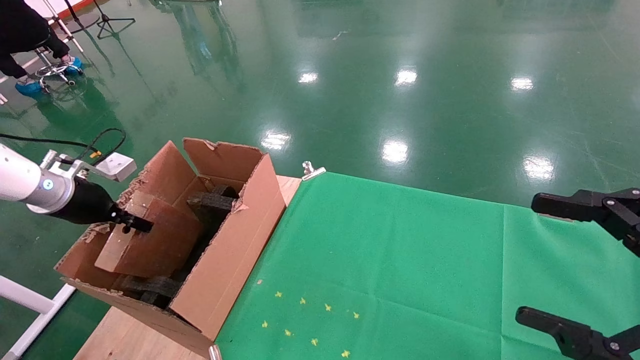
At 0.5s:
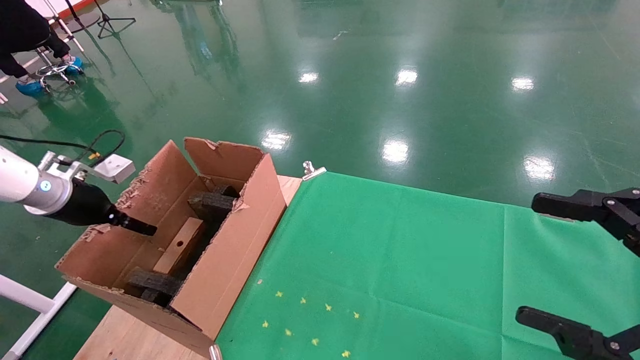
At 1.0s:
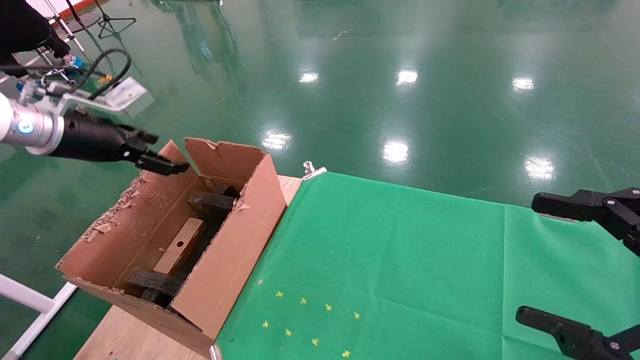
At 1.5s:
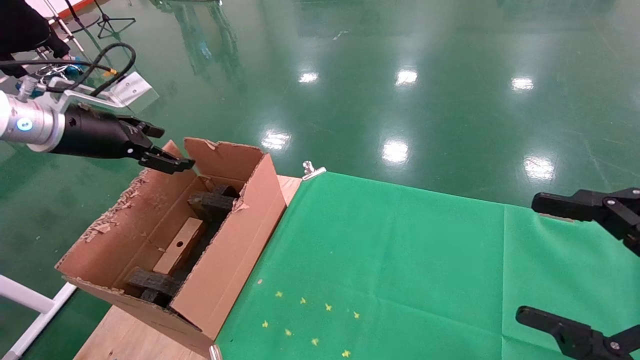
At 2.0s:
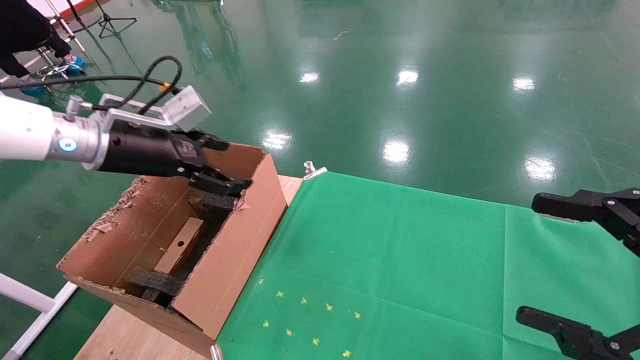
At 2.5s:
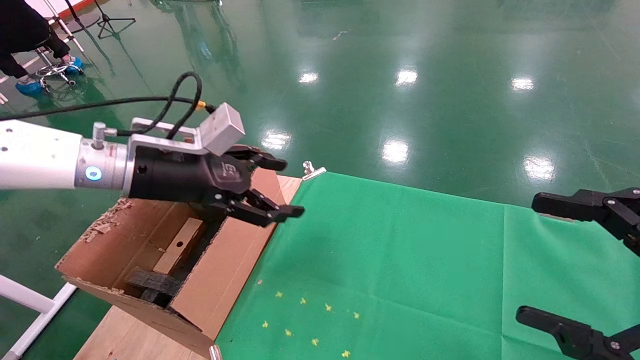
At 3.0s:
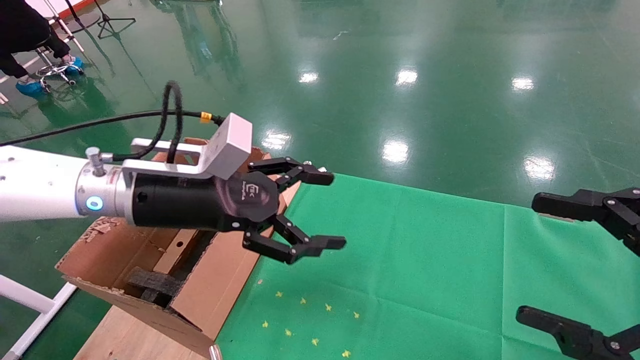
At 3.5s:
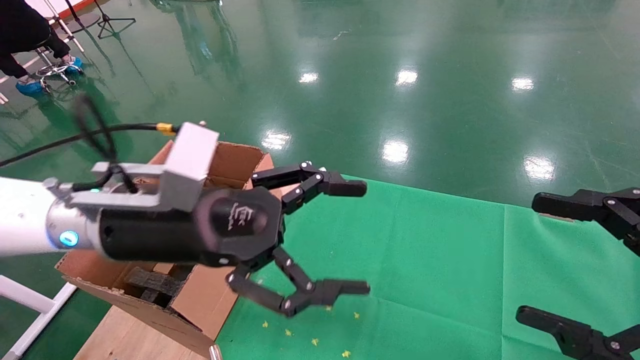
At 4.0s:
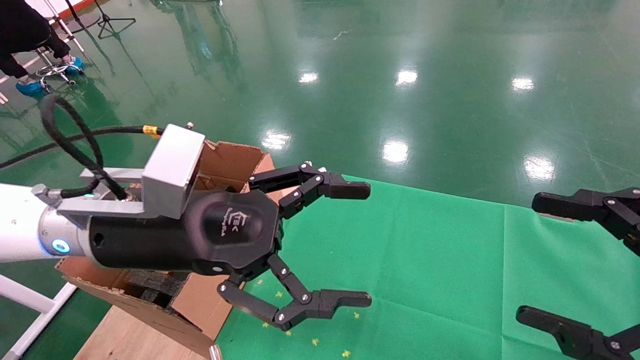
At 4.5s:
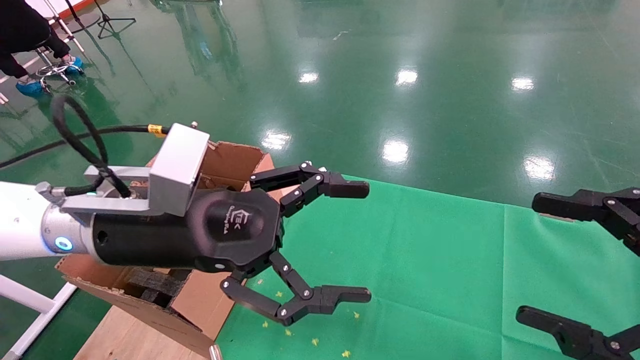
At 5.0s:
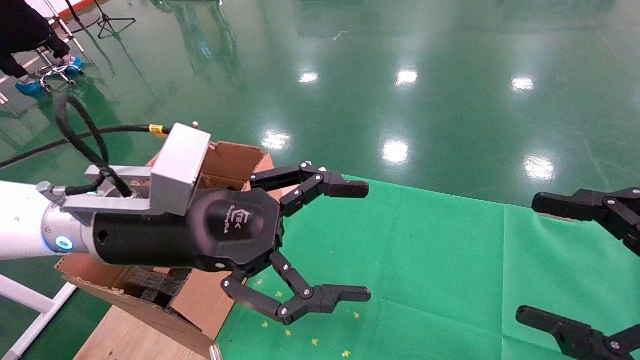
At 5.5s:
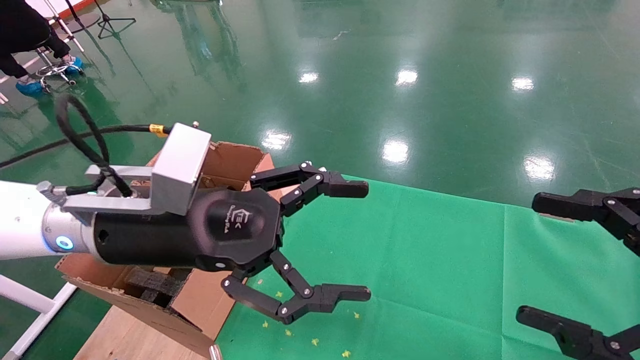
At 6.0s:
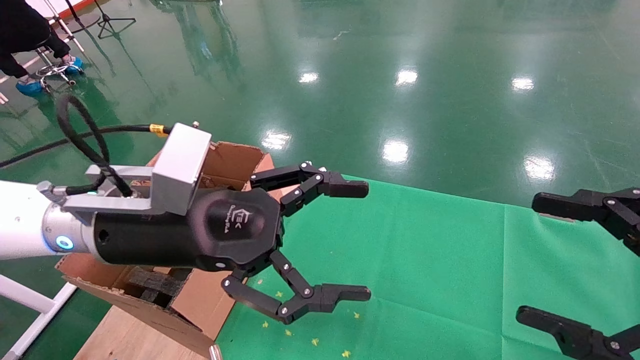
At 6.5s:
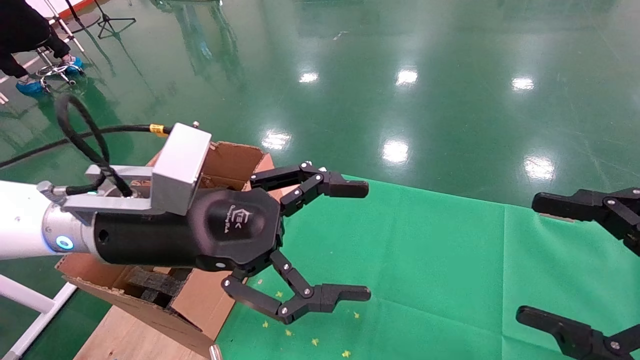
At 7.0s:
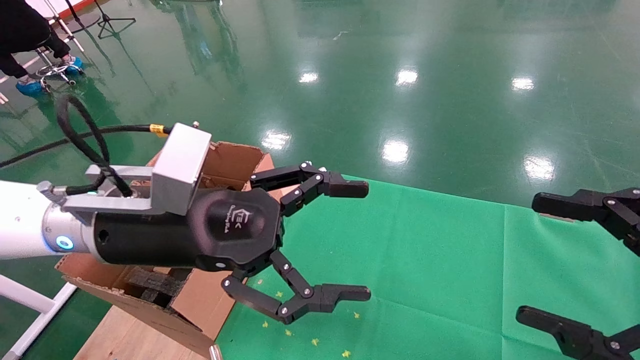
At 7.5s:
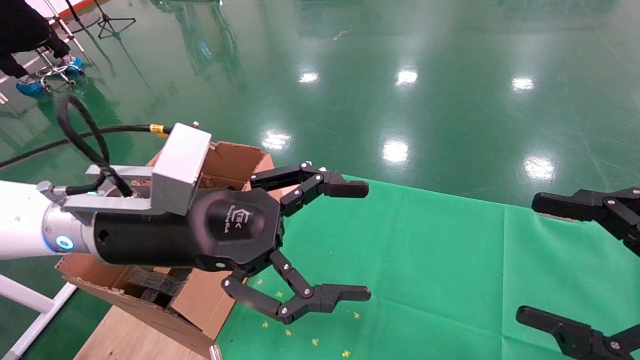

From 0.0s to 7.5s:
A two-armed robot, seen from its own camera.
Task of the whole recording: using a robotic arm to pick up a cardboard box and palace it the carton.
From 0.0s to 2.0s: The left gripper shifts roughly 20 cm to the right and upward, and opens its fingers.
From 2.0s to 4.0s: The left gripper travels to the right and backward by about 20 cm.
From 4.0s to 7.5s: Neither gripper changes place.
